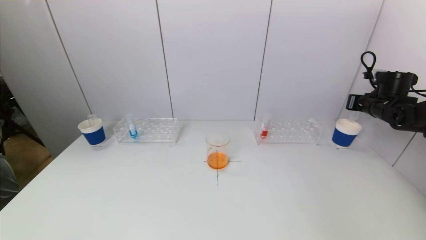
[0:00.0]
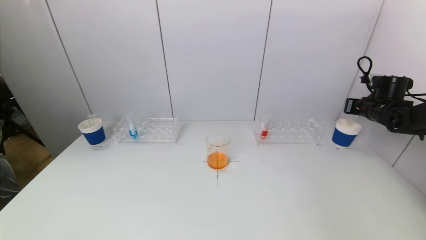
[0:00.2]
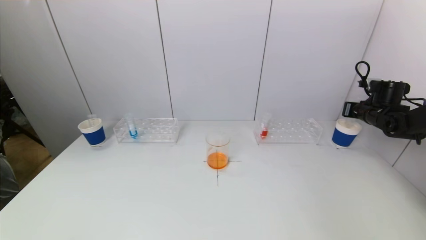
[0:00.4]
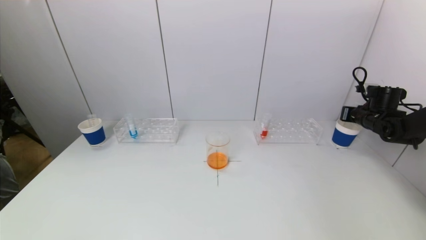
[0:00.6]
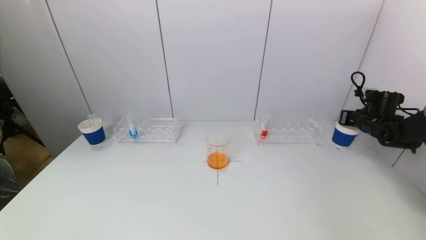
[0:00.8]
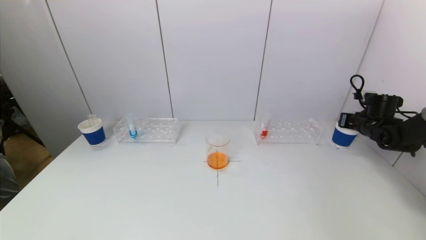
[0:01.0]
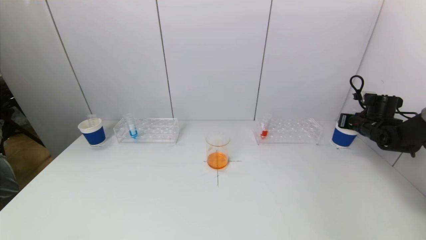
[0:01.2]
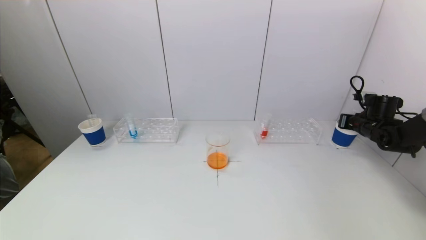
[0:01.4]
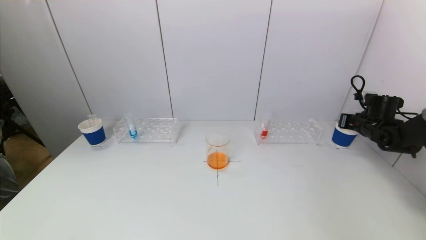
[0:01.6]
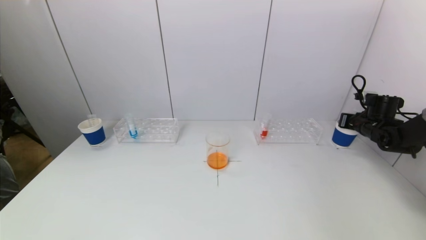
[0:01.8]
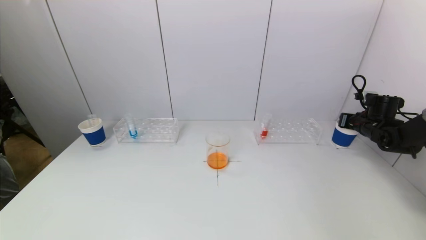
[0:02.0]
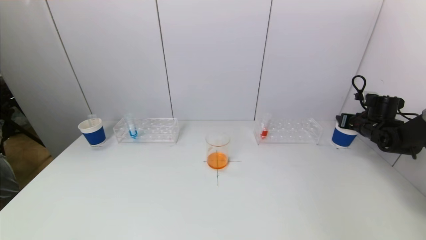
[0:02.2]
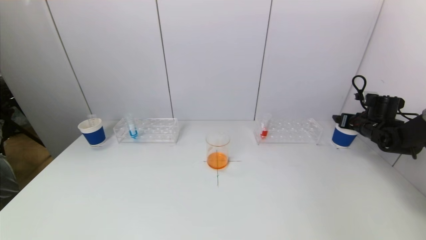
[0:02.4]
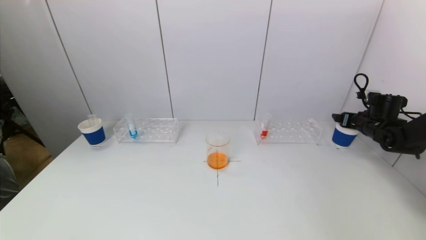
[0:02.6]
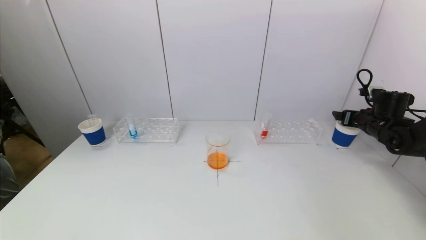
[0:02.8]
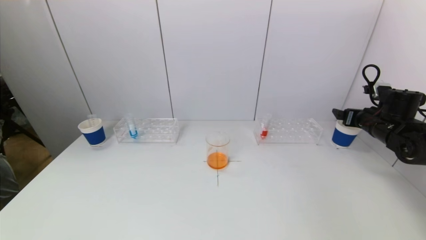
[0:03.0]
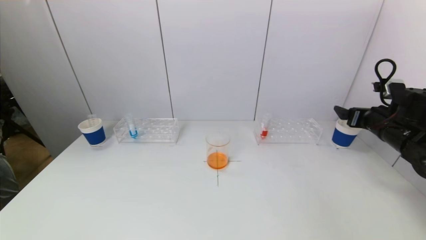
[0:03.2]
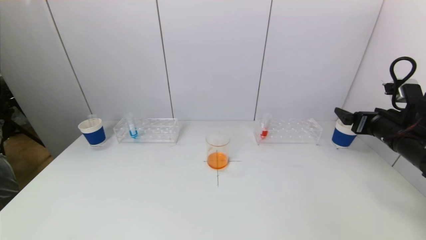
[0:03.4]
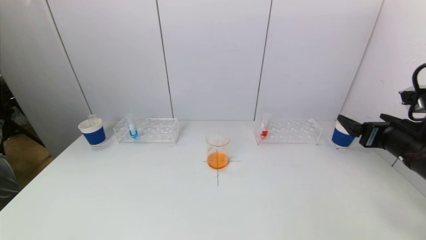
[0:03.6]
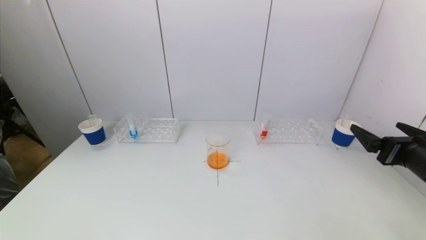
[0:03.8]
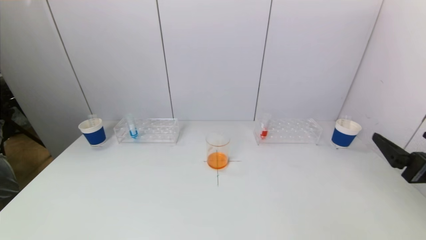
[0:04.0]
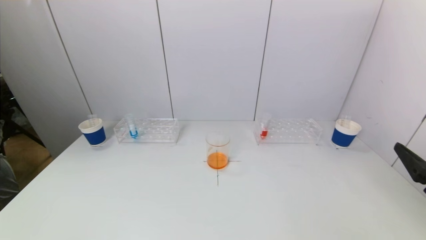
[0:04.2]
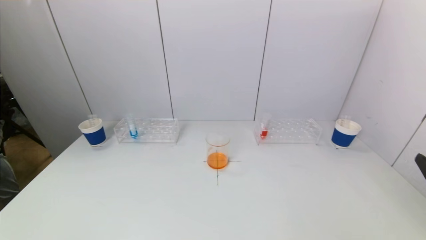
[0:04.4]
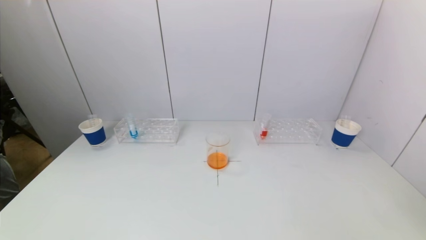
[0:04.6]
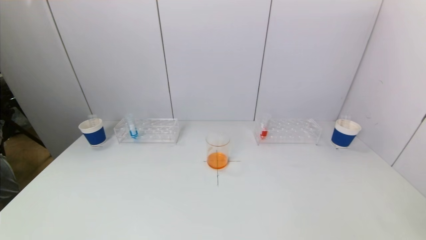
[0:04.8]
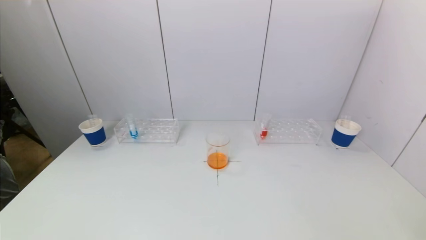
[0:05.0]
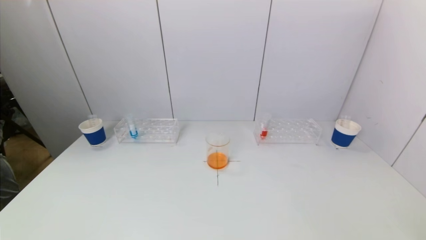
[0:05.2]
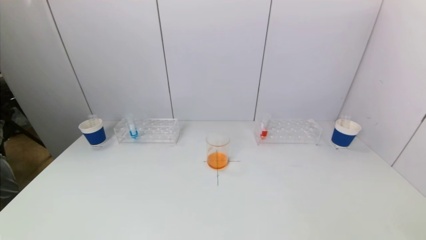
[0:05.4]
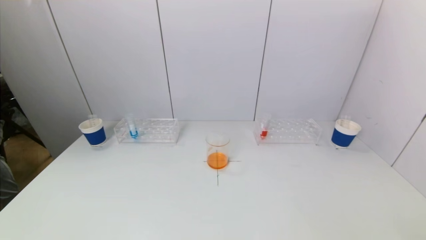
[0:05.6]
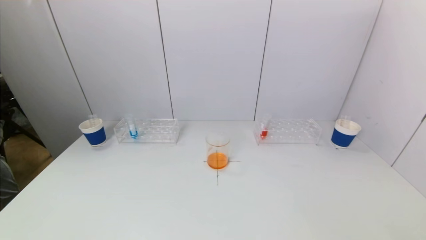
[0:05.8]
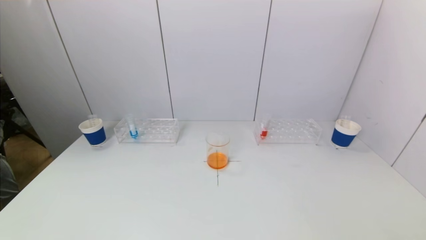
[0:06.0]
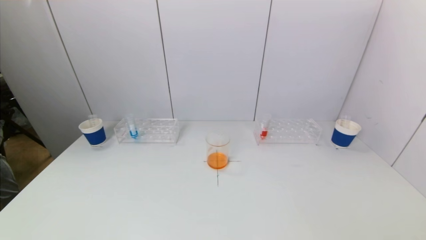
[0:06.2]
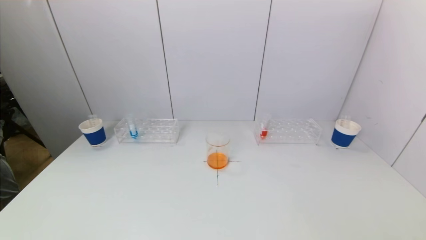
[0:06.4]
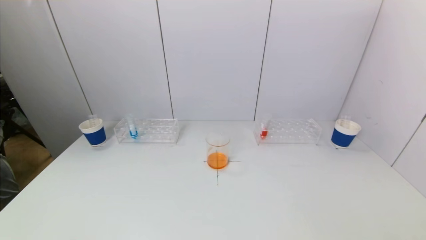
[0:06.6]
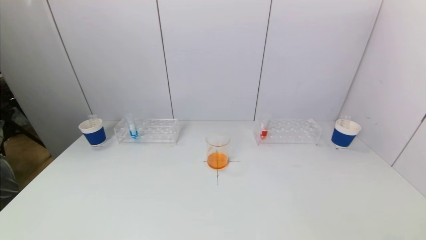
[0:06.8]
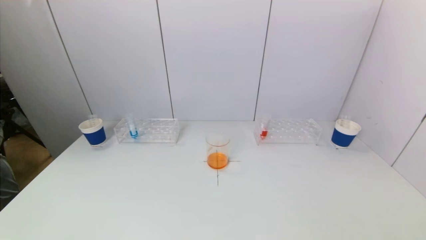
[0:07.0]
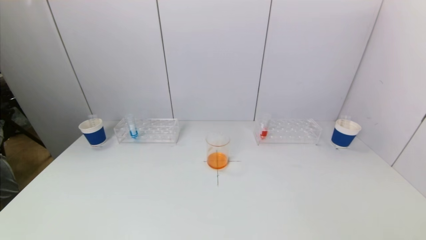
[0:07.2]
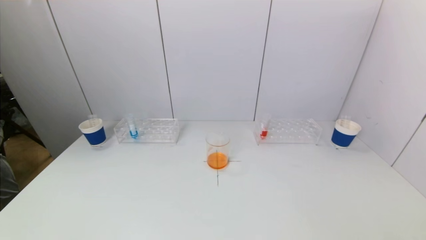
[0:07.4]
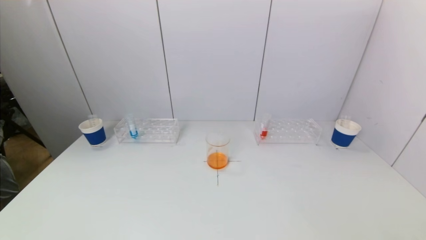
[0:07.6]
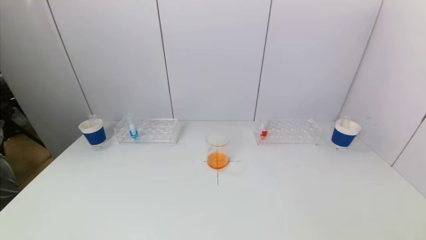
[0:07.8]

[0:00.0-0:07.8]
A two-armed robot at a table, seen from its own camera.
Task of the whole recording: pick up a test tube with pigment on left test tube rack and a test tube with pigment on right test tube rack by grippers and pour them into the beaker.
Step, 0:00.0 to 0:02.6: Place the test tube into the paper cup with the right gripper.
0:00.0 to 0:01.6: The right gripper shifts roughly 5 cm downward.
0:01.6 to 0:03.2: The right gripper goes some 15 cm backward, to the left and upward, and opens up.
0:03.2 to 0:04.6: The right gripper heads backward, covering roughly 30 cm.
0:06.2 to 0:07.8: Neither gripper changes place.
